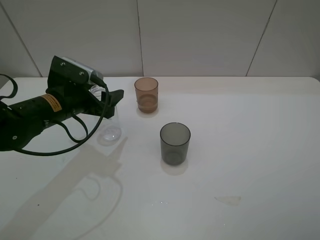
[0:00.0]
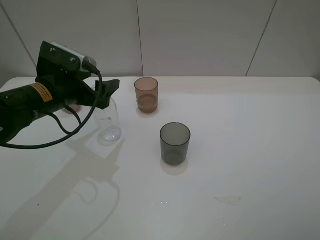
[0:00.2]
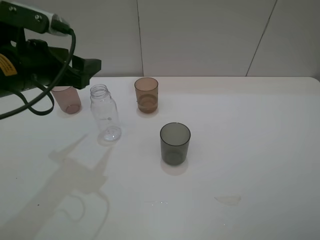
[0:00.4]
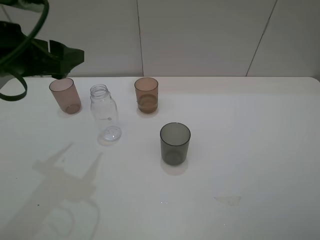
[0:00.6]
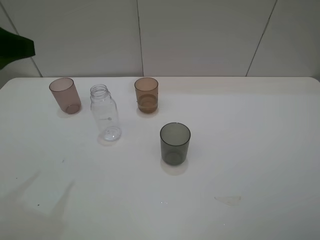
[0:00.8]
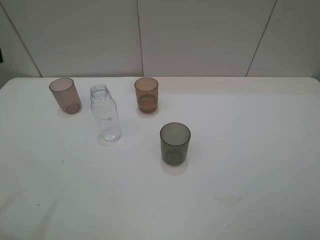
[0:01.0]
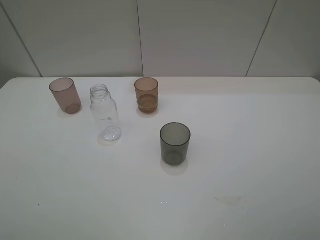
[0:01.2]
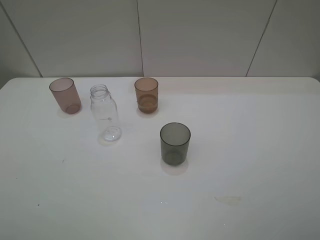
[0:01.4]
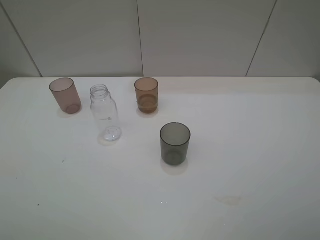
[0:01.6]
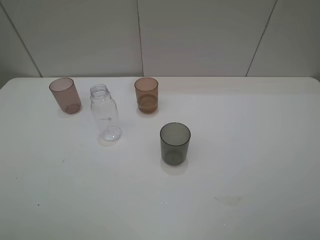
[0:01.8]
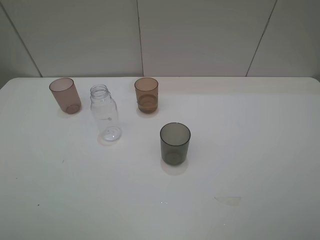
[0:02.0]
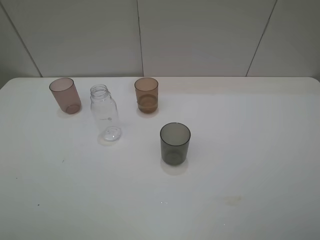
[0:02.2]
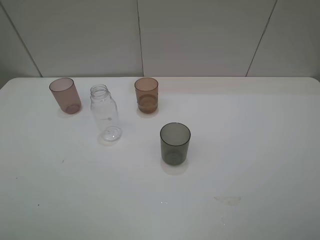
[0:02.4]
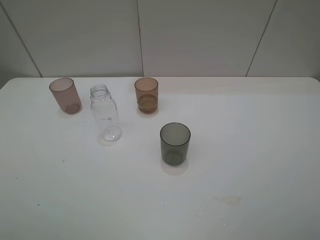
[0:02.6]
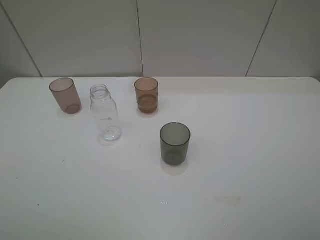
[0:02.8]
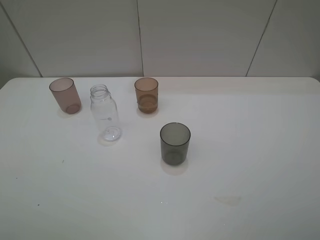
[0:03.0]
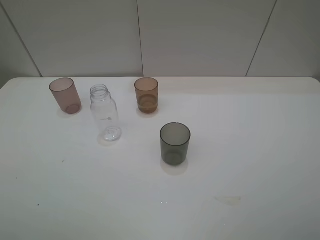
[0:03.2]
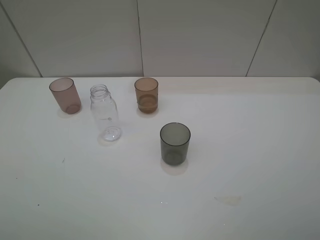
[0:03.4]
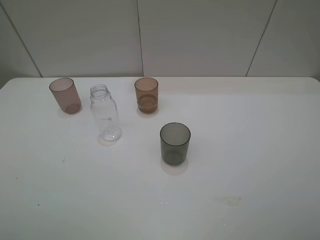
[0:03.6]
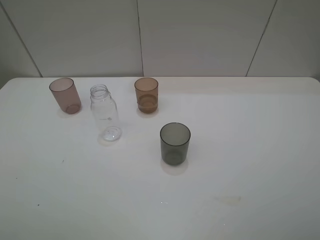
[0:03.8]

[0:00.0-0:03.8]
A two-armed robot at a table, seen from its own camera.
Task of the whole recording: pick up the bottle filled with water and pour water into the middle cup of the three cups.
0:00.0 to 0:01.2: The left gripper goes approximately 30 cm backward, upward and to the left.

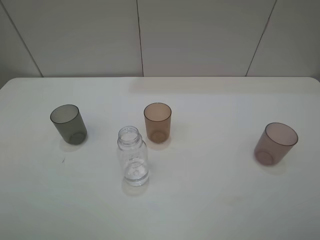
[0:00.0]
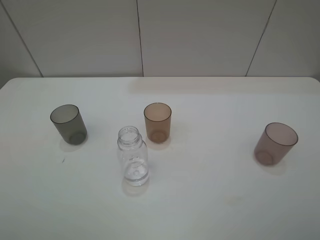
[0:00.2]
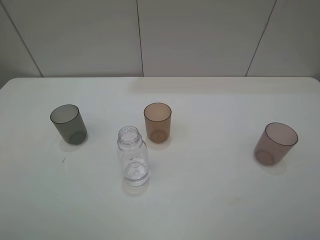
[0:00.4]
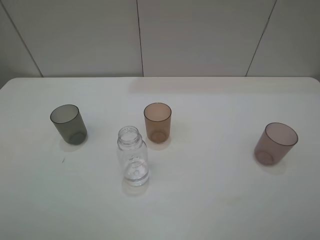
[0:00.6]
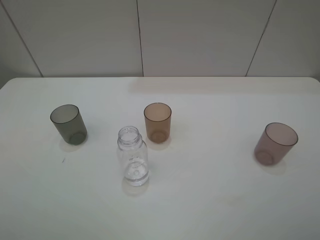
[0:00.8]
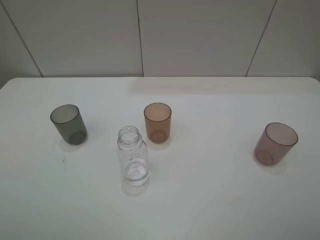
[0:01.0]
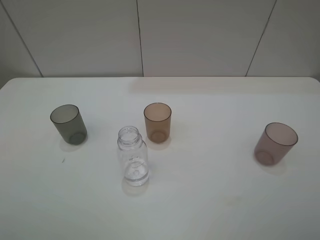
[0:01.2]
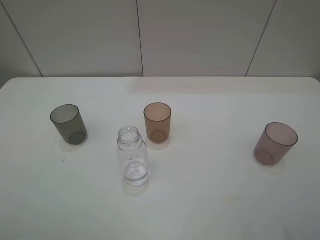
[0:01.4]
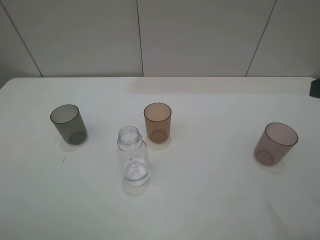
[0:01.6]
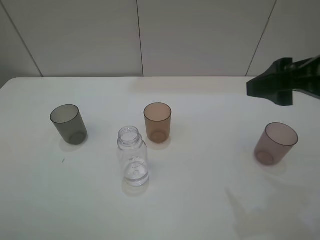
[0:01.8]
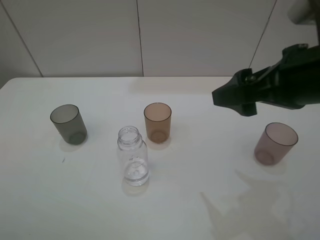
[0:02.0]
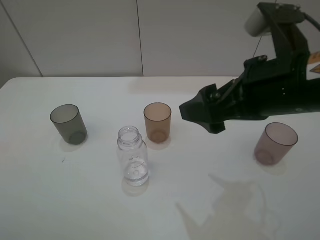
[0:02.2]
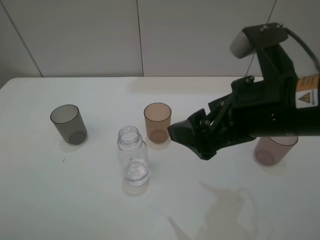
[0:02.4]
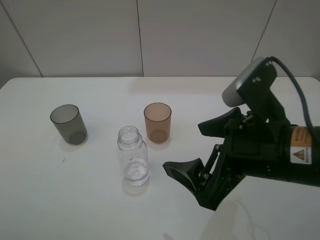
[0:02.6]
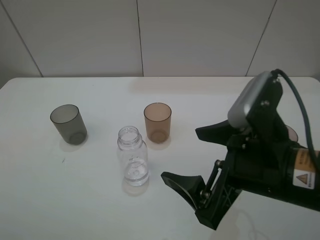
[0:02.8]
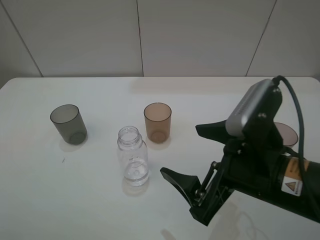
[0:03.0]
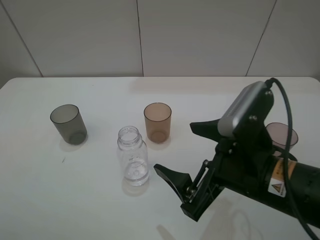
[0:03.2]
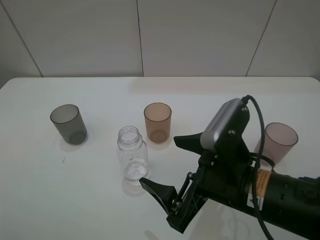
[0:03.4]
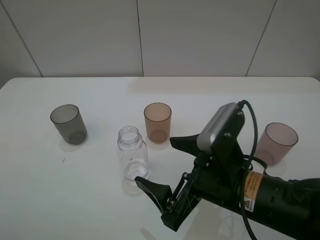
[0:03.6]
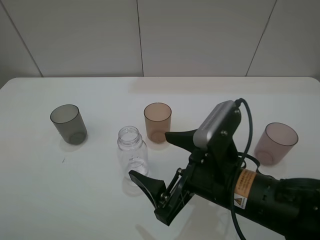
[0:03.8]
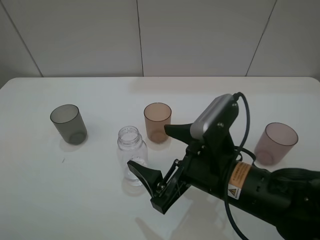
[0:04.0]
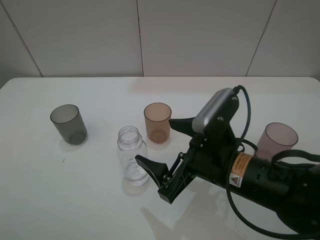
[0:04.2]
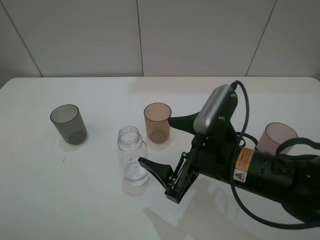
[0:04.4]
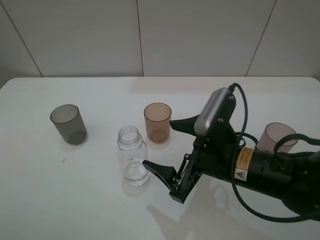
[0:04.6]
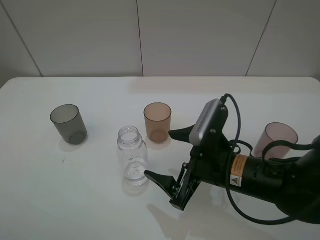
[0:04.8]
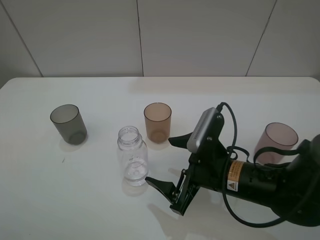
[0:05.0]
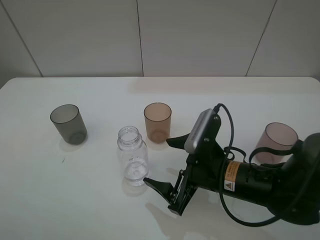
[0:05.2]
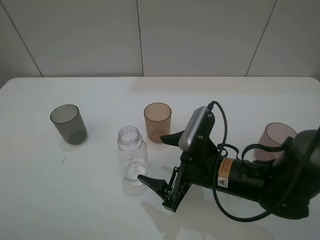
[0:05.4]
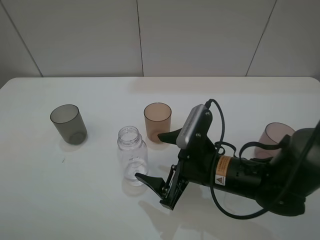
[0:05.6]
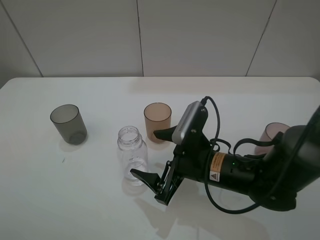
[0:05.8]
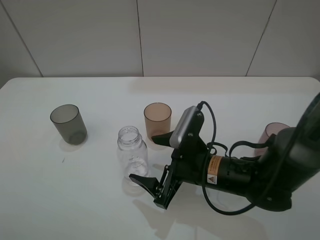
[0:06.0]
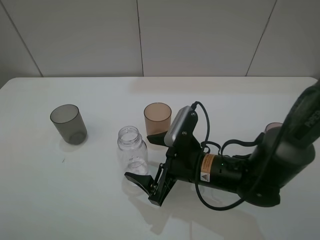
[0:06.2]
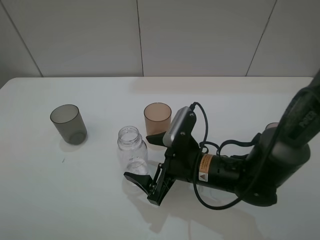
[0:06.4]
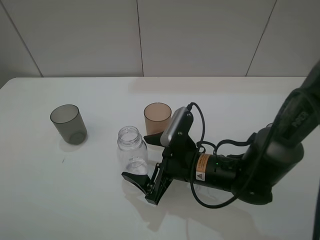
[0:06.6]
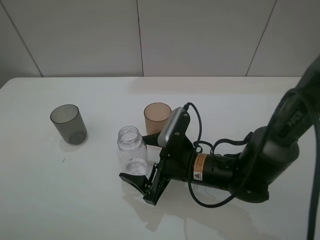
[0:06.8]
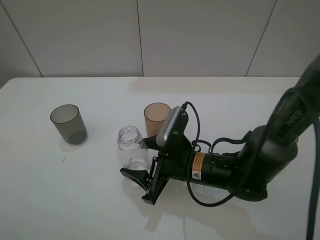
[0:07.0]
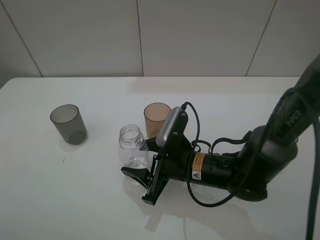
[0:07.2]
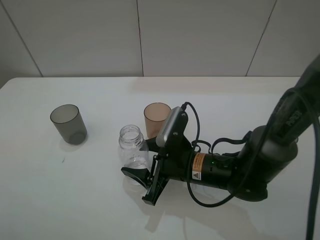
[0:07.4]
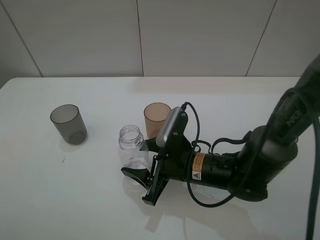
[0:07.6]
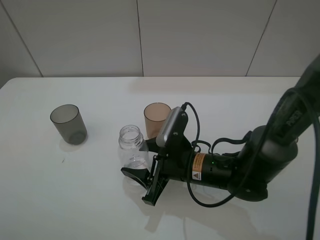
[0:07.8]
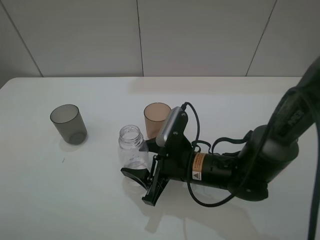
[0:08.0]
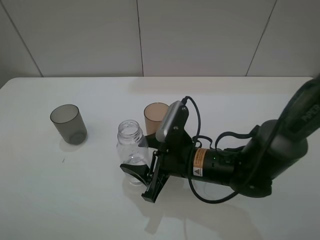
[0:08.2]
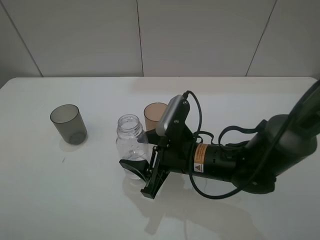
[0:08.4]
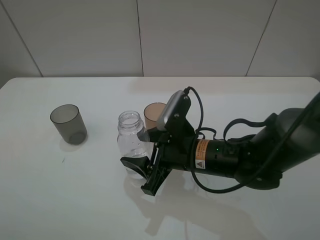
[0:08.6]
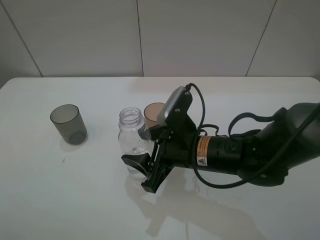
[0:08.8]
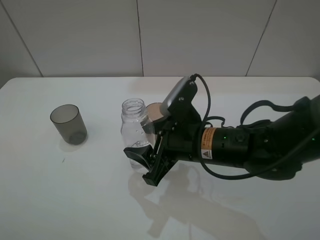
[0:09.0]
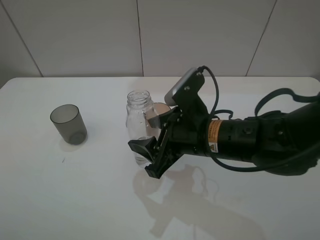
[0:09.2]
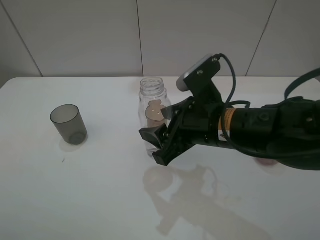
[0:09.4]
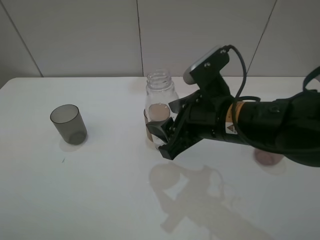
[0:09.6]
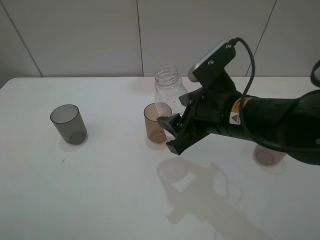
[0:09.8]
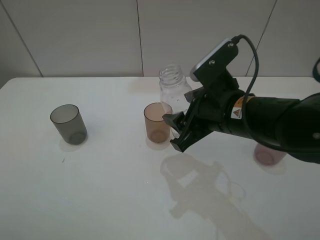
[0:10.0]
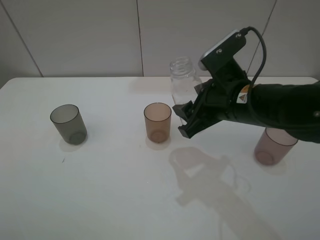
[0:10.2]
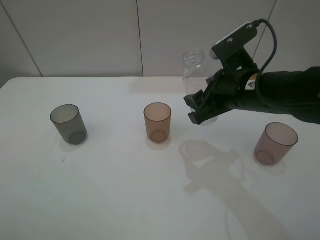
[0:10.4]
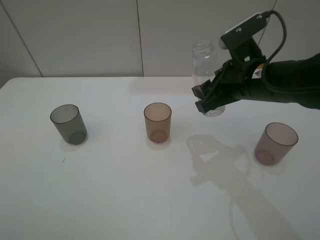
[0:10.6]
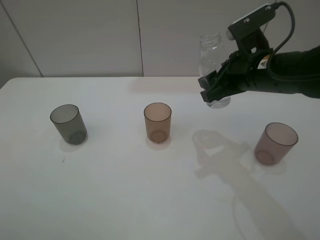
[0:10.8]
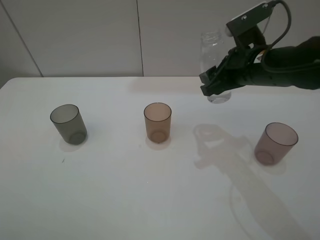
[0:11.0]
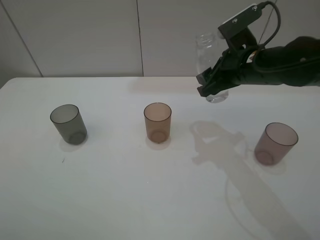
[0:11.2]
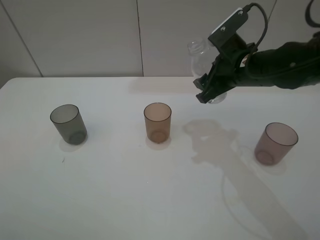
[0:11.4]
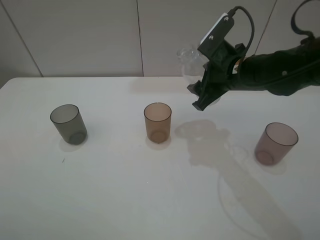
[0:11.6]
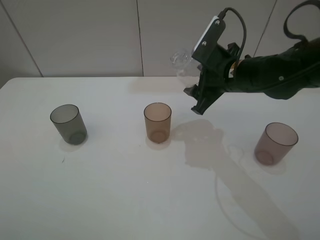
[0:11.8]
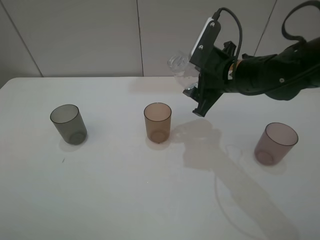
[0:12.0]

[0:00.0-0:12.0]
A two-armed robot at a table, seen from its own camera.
Task of the whole recording: pick up the bottle filled with water and pour water into the middle cup of the three cups.
Step, 0:00.0 to 0:07.6: Grasp the transparent bottle with the right gripper.
0:01.6 to 0:03.0: The right gripper travels to the left and downward by about 20 cm.
0:03.0 to 0:04.4: The right gripper ends up some 5 cm from where it was.
0:04.4 to 0:06.0: The right gripper goes some 5 cm downward.
0:06.0 to 0:07.6: The right gripper closes its fingers.
0:07.6 to 0:09.0: The right gripper heads upward, covering some 5 cm.
0:09.0 to 0:10.4: The right gripper is displaced to the right and upward by roughly 10 cm.
0:10.4 to 0:12.0: The right gripper heads forward, covering roughly 5 cm.

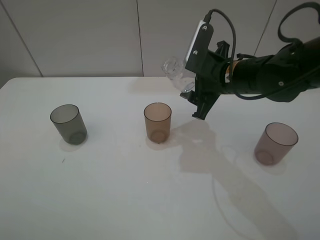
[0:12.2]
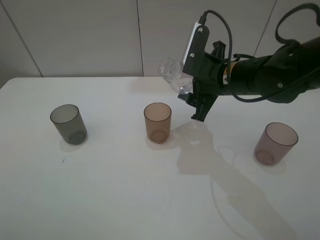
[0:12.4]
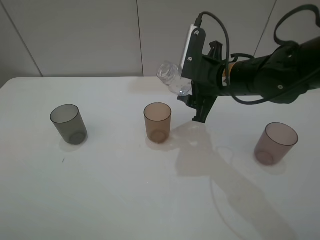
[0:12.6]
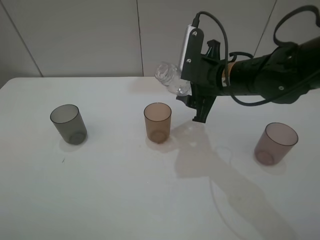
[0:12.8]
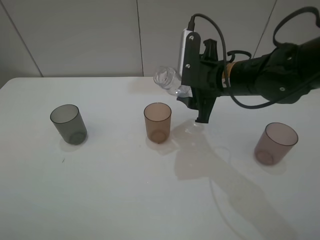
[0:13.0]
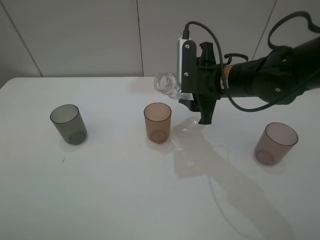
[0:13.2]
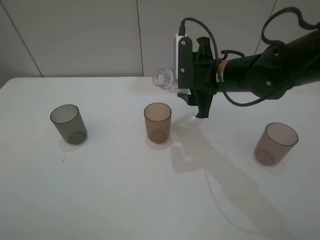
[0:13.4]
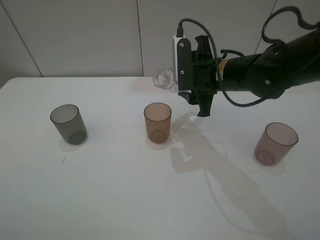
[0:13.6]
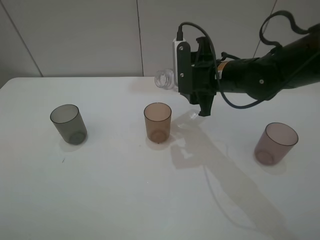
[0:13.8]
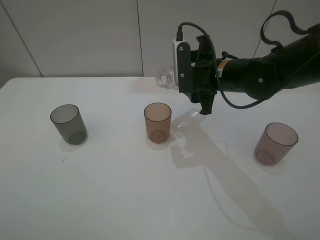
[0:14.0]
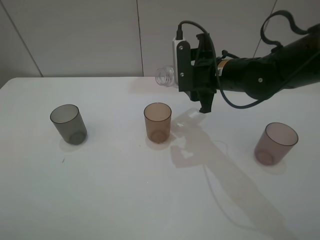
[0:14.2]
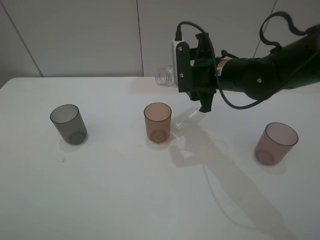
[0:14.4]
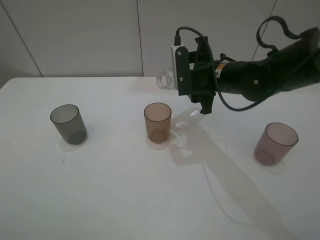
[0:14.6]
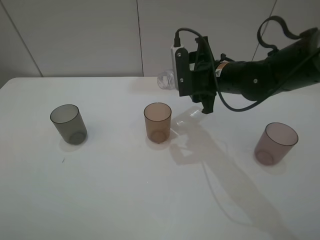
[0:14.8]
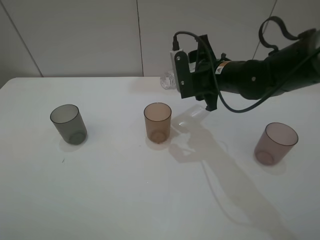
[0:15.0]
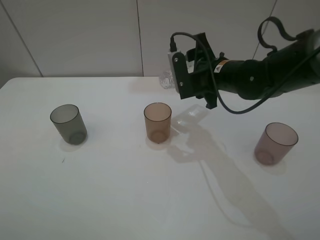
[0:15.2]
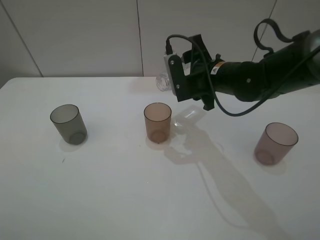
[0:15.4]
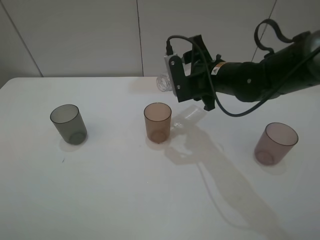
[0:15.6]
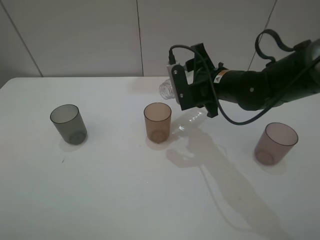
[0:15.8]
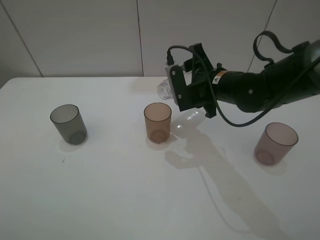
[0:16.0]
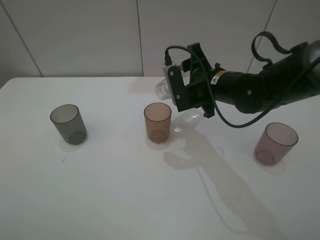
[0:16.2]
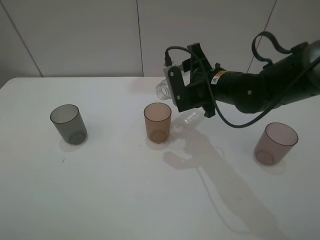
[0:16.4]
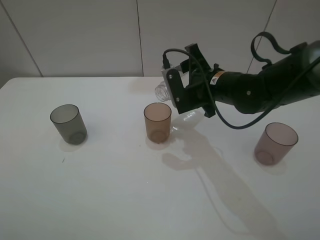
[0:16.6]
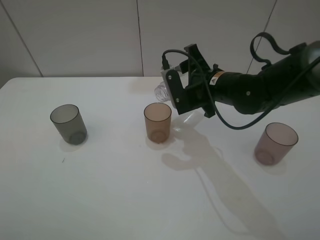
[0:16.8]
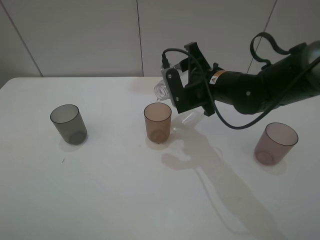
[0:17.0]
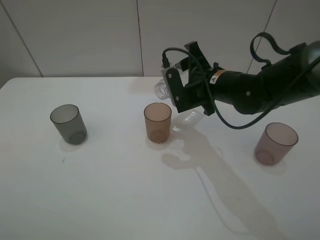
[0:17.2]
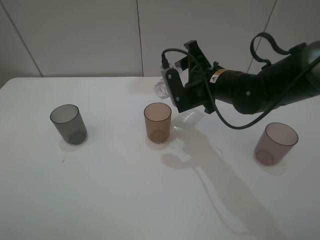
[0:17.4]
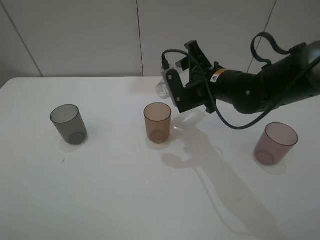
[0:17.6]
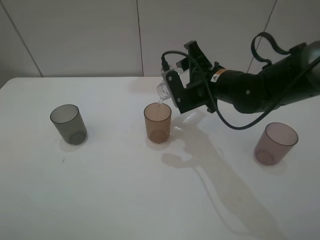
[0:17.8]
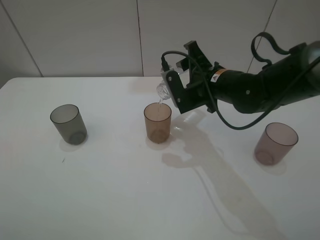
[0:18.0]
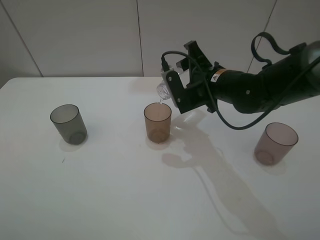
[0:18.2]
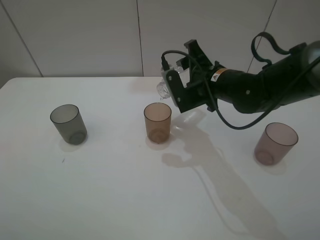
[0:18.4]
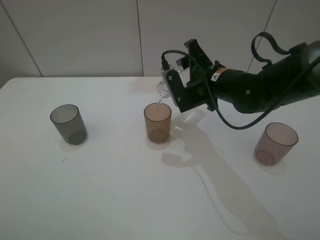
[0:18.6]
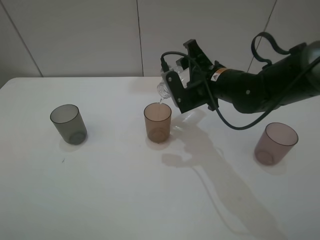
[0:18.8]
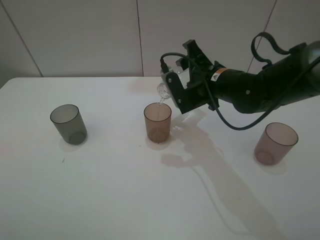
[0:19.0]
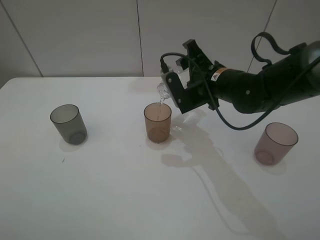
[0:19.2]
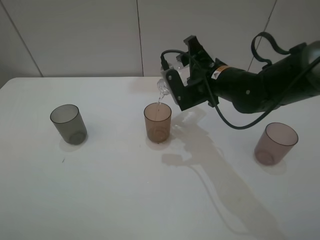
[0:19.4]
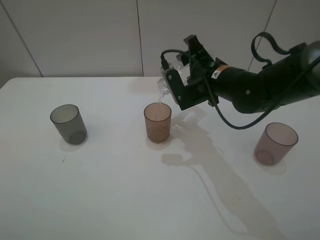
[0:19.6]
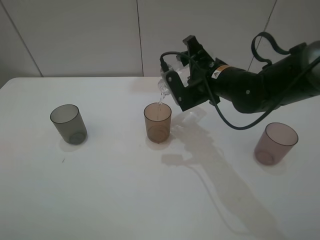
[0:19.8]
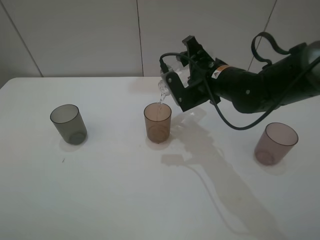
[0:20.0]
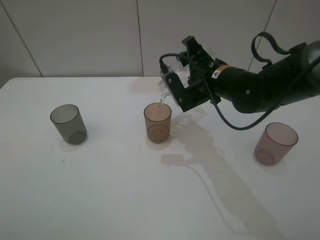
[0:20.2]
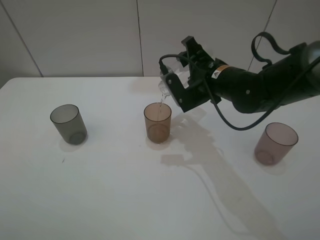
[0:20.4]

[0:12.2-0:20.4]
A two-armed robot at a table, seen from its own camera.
Task of the whole recording: pick up the bottle filled with water and pour water into the middle cup of the three cups.
0:13.8 to 0:15.4: The grippers stay close to where they were, moving slightly.
0:15.4 to 0:20.4: The grippers make only small movements.
